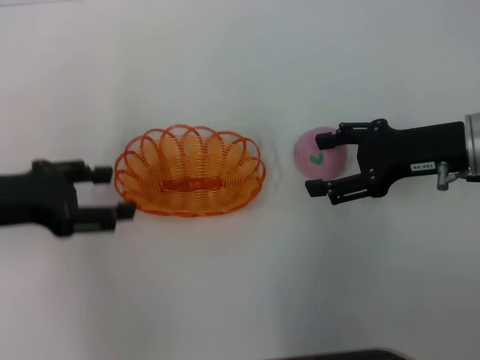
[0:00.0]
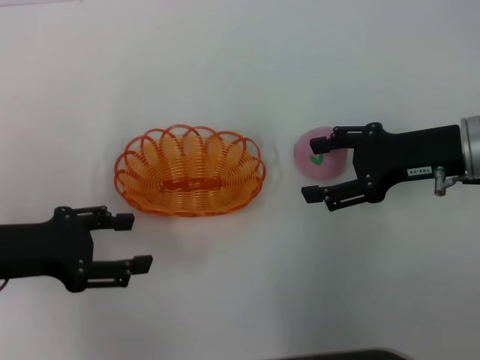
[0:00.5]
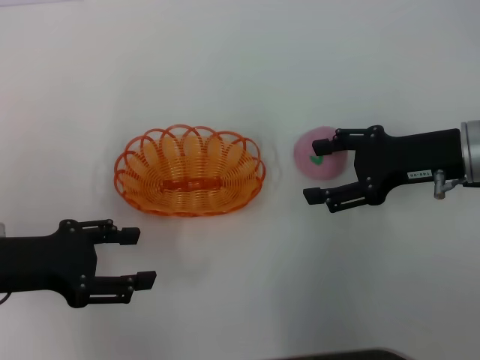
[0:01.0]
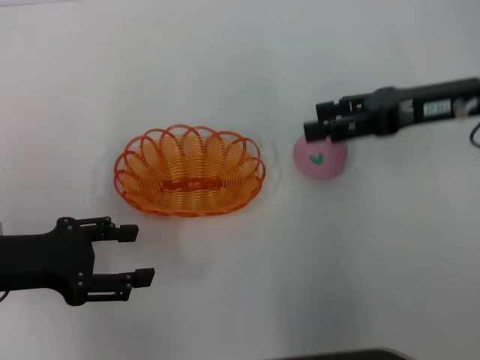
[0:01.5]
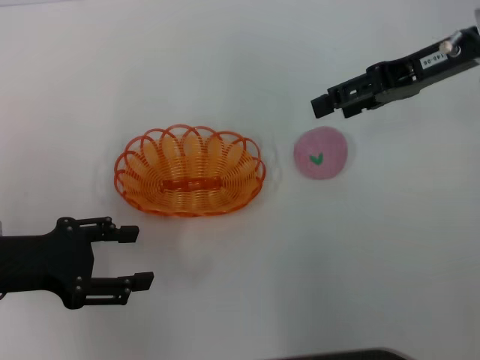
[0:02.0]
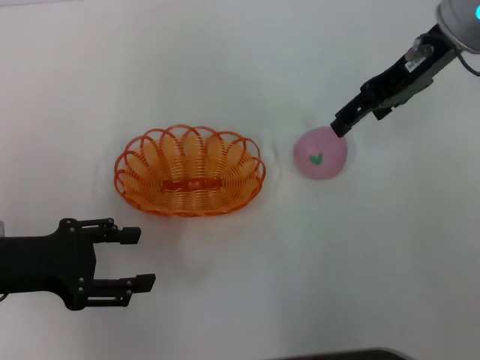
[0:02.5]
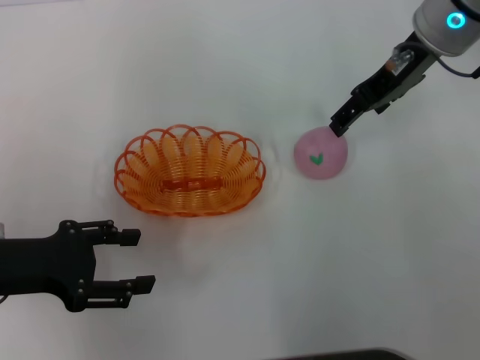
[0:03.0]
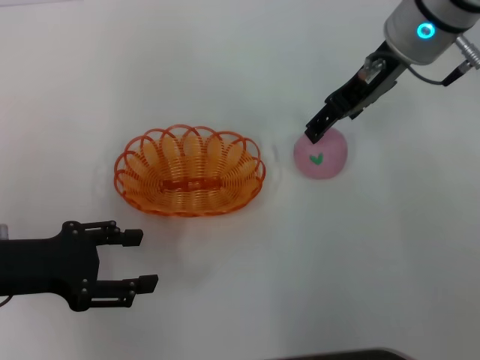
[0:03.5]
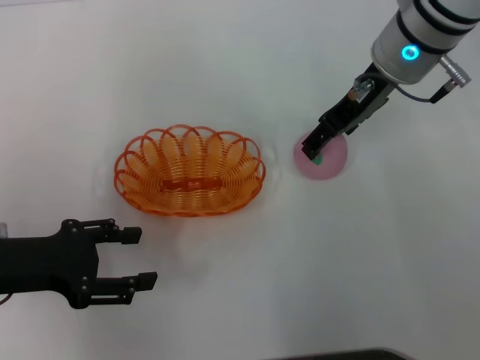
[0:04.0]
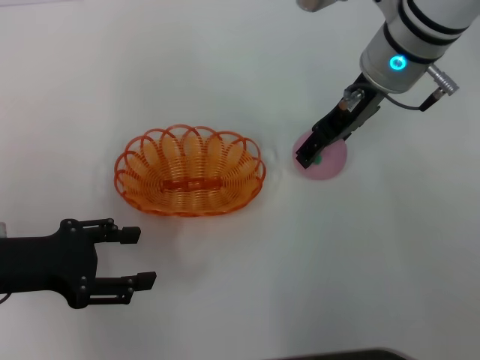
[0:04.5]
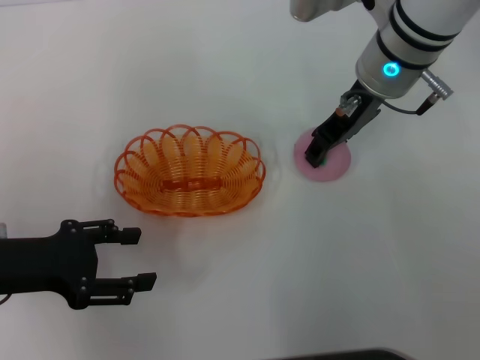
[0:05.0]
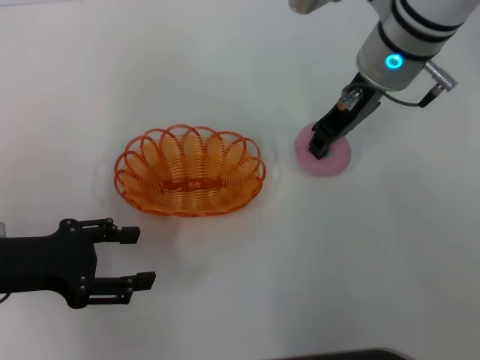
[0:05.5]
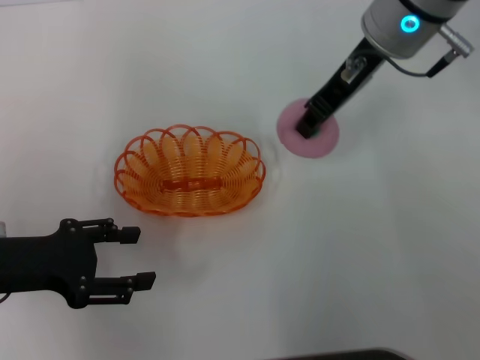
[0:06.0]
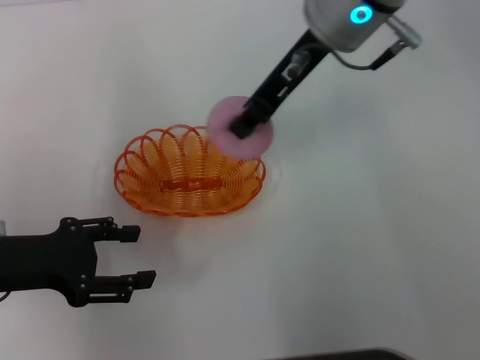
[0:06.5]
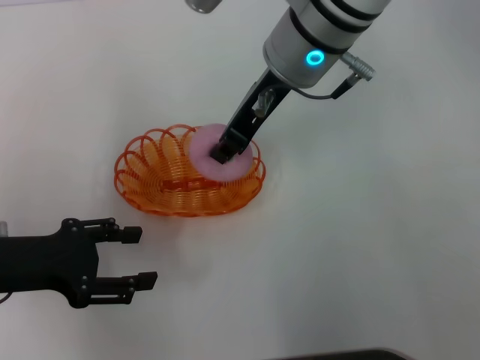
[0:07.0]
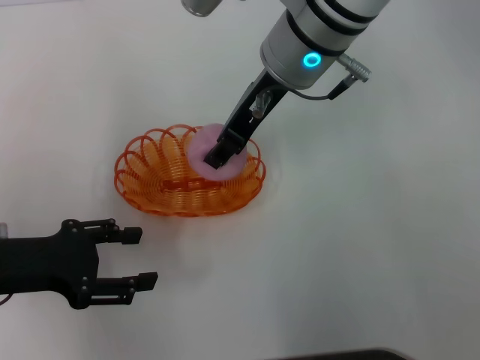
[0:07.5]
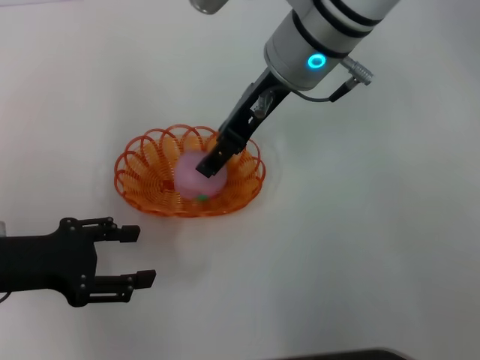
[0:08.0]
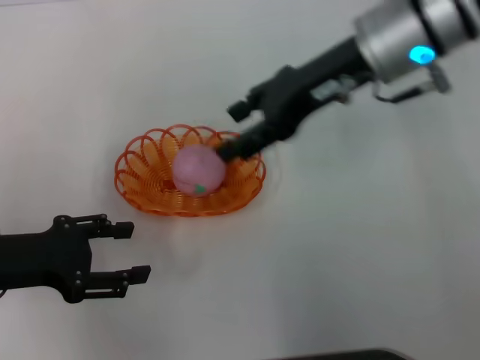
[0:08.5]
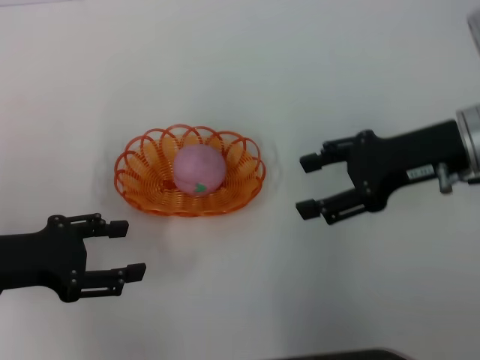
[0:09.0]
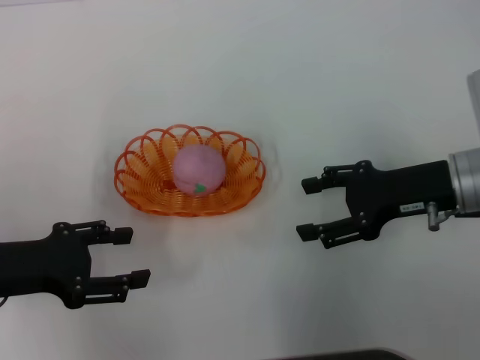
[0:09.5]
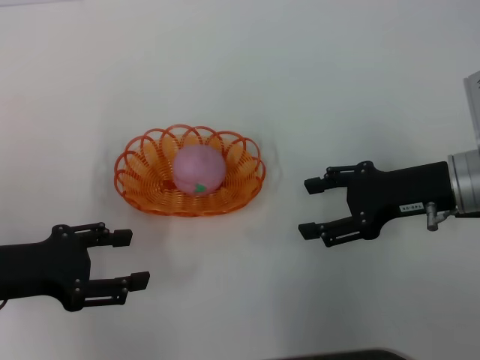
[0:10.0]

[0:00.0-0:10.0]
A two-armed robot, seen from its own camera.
Step, 0.0 to 6.0 s: Pick up the peach with the right gripper.
Step, 6.5 to 8.5 s: Place the peach into the basket with the right gripper.
0.0 to 2.0 s: The right gripper moves upward and forward, approximately 10 cm.
2.0 to 4.0 s: The right gripper heads to the left, covering roughly 10 cm.
4.0 to 6.0 s: The right gripper closes up.
6.0 to 8.0 s: The right gripper heads to the left, covering some 5 cm, and opens.
8.0 to 10.0 s: The right gripper goes approximately 25 cm to the right, downward and backward.

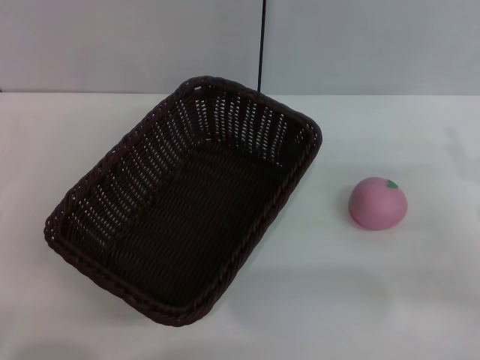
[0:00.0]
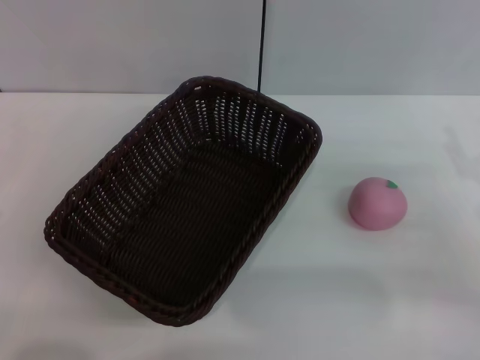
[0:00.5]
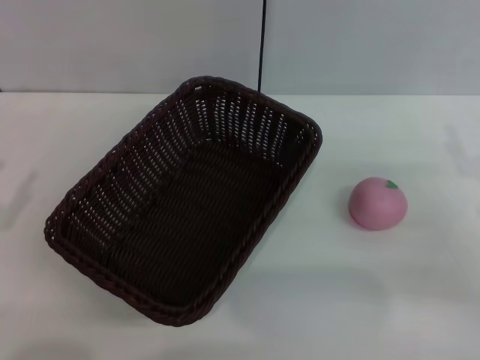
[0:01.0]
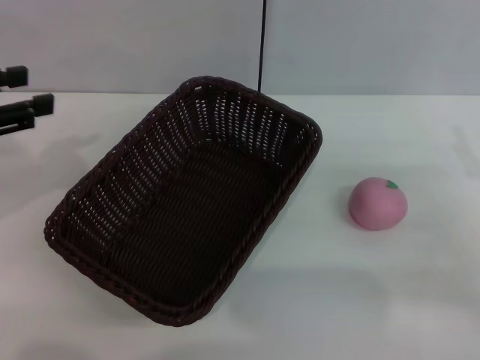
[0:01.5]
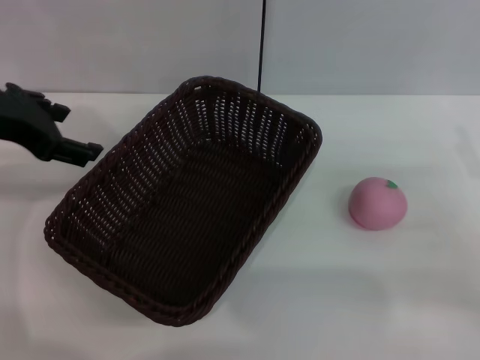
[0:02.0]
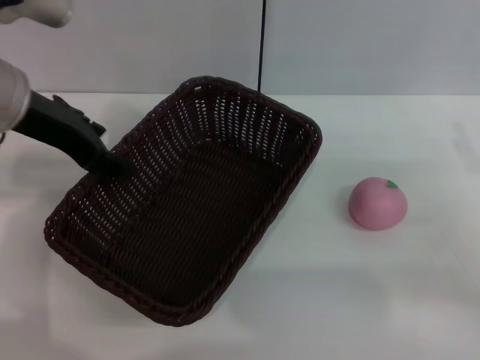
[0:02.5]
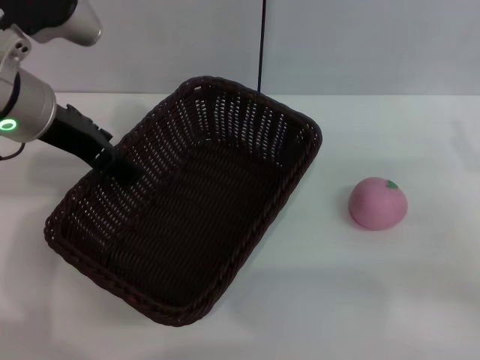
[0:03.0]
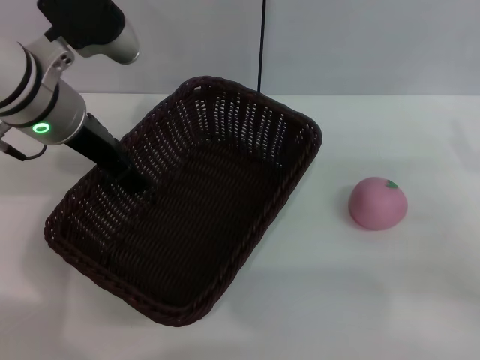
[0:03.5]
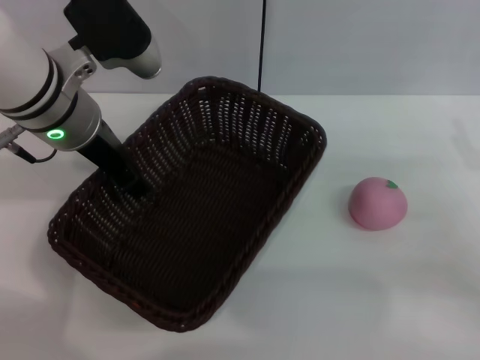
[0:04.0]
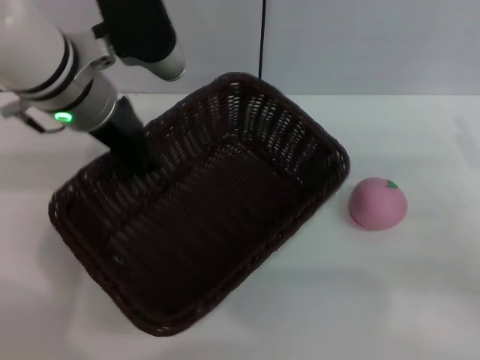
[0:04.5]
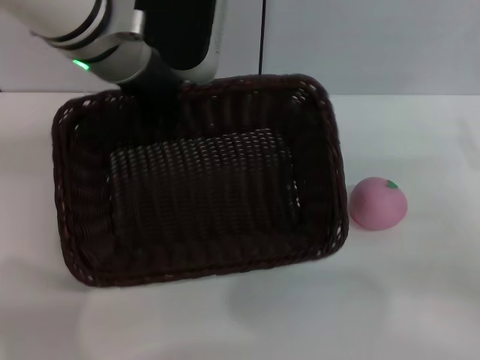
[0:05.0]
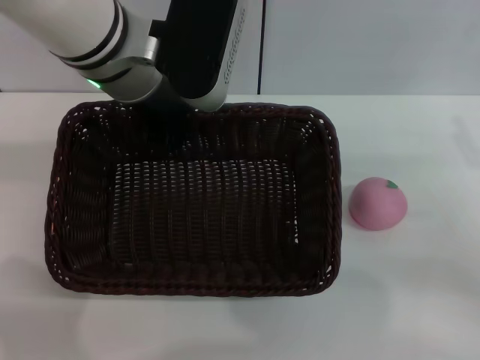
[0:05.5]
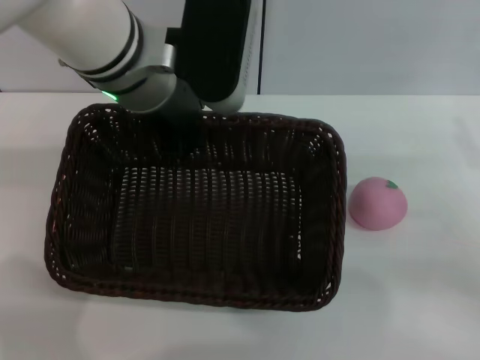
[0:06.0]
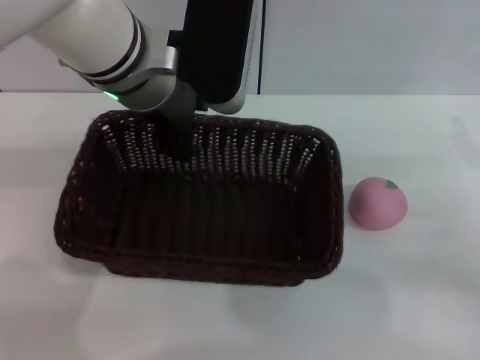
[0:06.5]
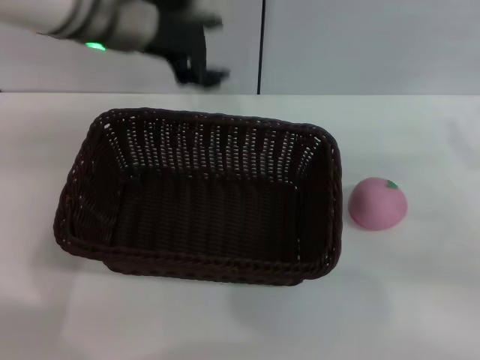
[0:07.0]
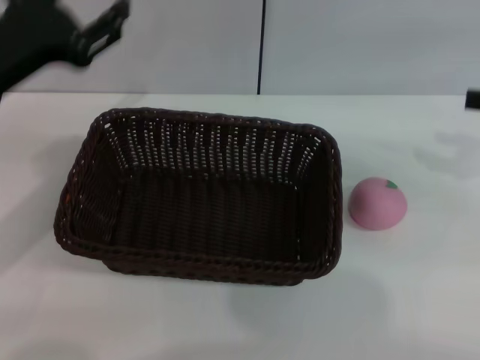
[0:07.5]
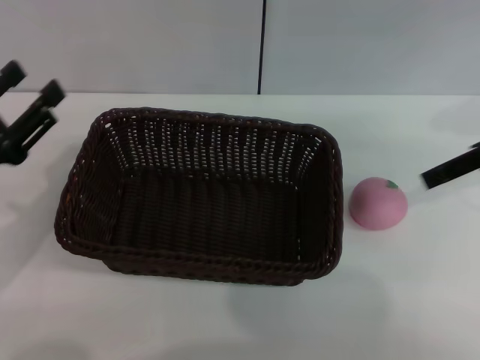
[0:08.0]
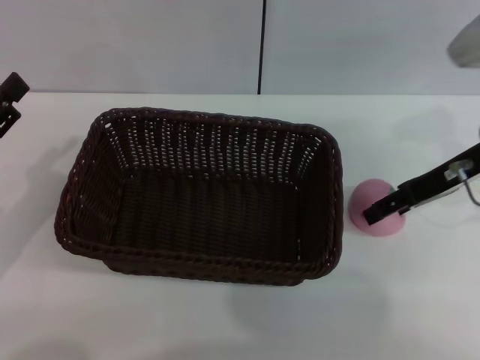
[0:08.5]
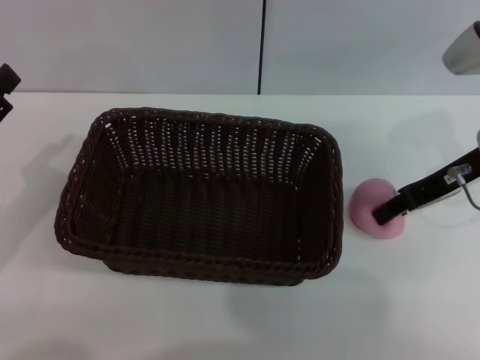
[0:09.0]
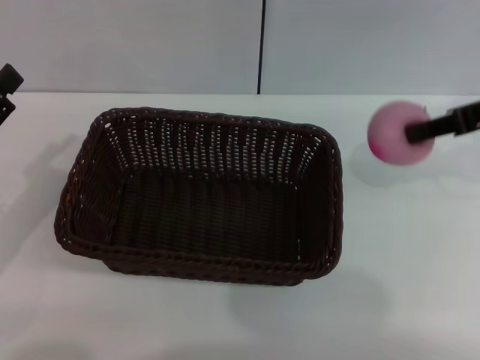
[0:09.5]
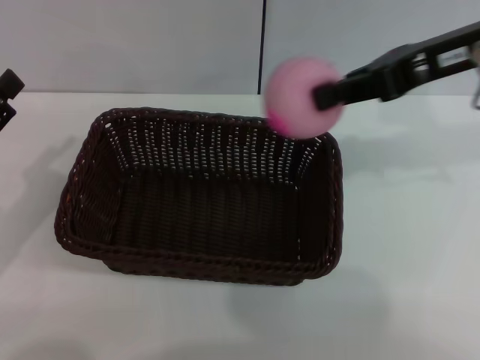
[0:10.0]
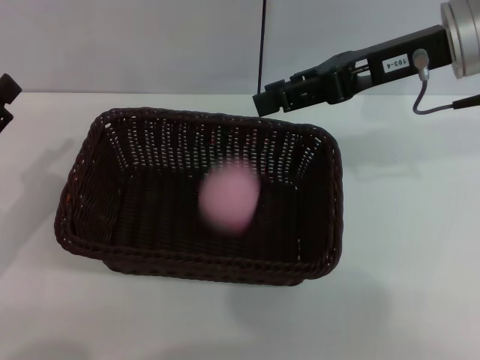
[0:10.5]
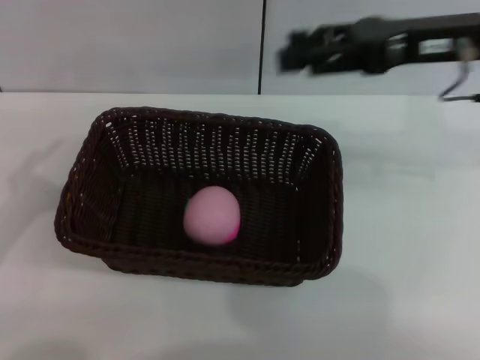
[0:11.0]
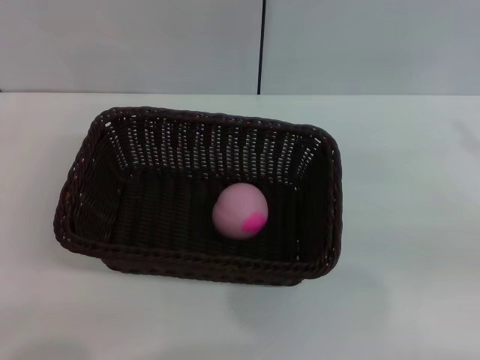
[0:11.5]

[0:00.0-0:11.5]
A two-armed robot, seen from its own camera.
Step, 0.0 to 4.5 s: Pick up the dark basket with the left gripper.
Step, 5.0 to 6.5 s: Place the dark basket in the center of view with the right gripper.
Step, 7.0 to 9.0 s: Pick up the peach with the left gripper.
0.0 to 2.0 s: The left gripper heads forward and upward, covering about 25 cm.
2.0 to 4.0 s: The left gripper travels to the right by about 10 cm.
4.0 to 6.0 s: The left gripper heads to the right, covering approximately 5 cm, and closes.
6.0 to 7.5 s: The left gripper travels to the left and backward by roughly 15 cm, and opens. Meanwhile the right gripper is displaced upward and forward by some 10 cm.
7.5 to 9.5 s: The left gripper is displaced downward, backward and to the left by approximately 15 cm. The right gripper goes approximately 10 cm to the left, and closes.
9.5 to 11.5 s: The left gripper moves backward and to the left, some 10 cm, while the right gripper moves to the right, backward and downward, approximately 15 cm, and opens its fingers.

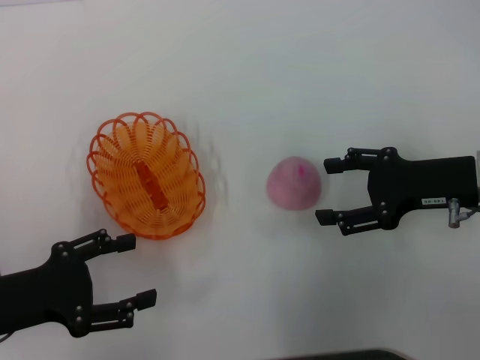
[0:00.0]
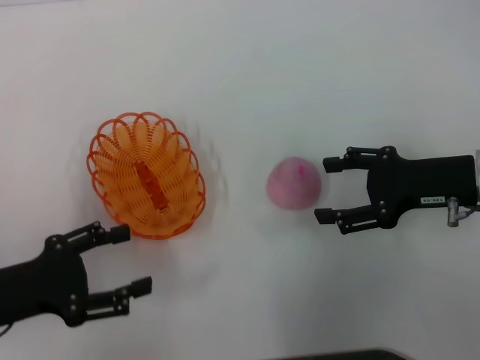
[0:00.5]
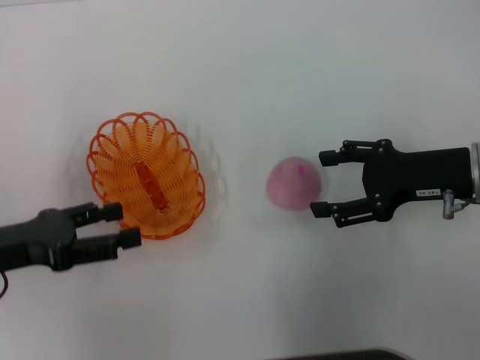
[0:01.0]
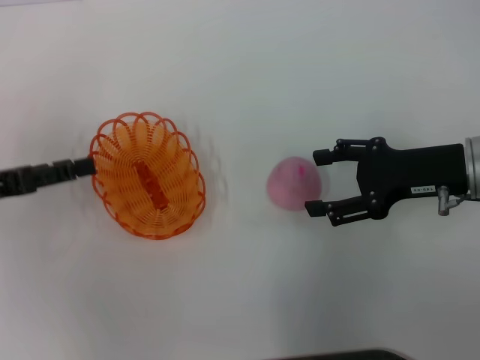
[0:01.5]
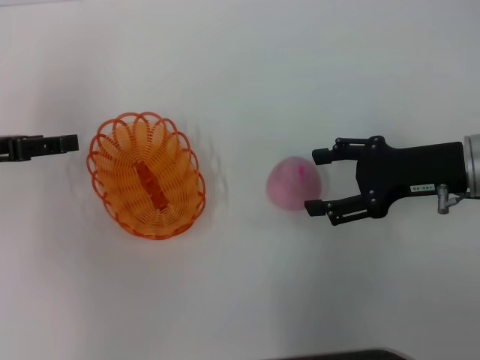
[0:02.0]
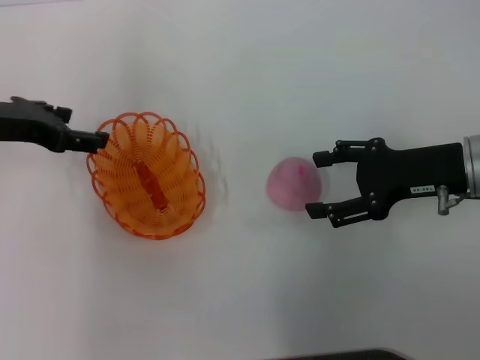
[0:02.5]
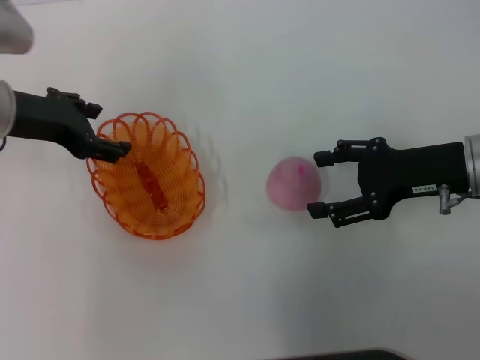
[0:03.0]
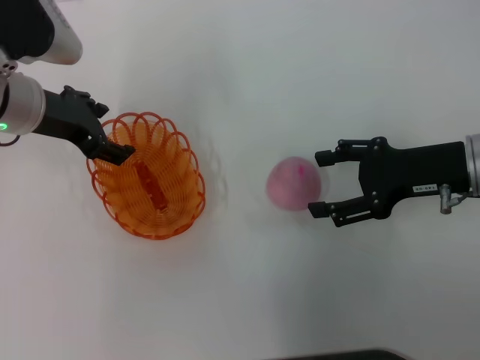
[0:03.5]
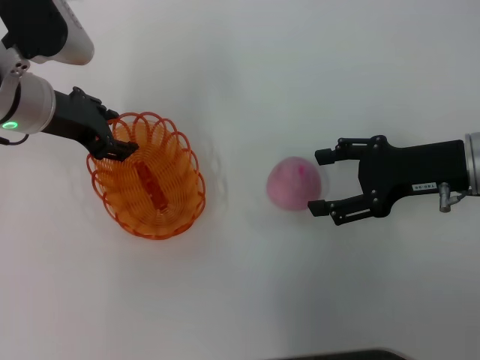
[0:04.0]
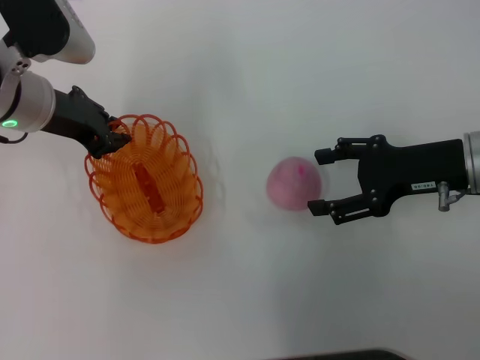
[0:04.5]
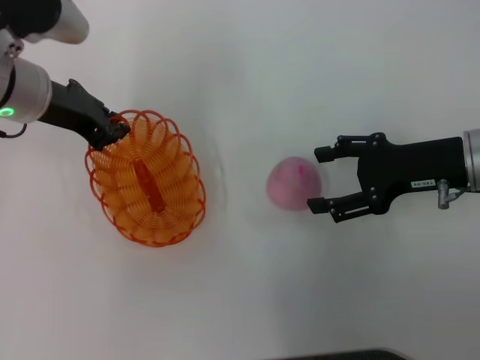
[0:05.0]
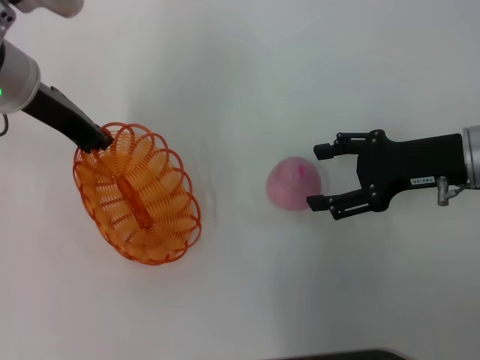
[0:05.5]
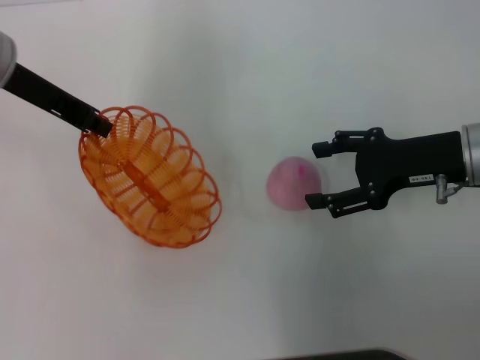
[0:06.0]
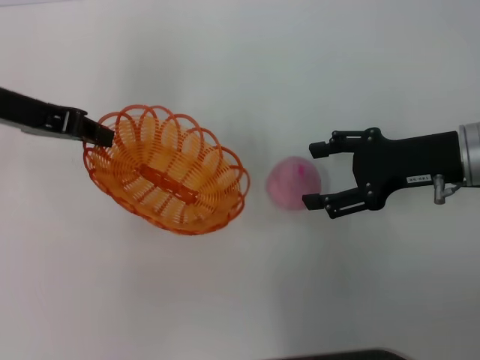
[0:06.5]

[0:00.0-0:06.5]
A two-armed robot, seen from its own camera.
Step, 0.0 to 6.0 s: Pick up the basket with the left gripper.
0.0 to 2.0 s: The left gripper goes about 15 cm forward and upward.
2.0 to 4.5 s: The left gripper heads to the right and forward, covering approximately 15 cm, and closes its fingers.
4.5 to 6.5 s: The left gripper shifts about 5 cm upward.
